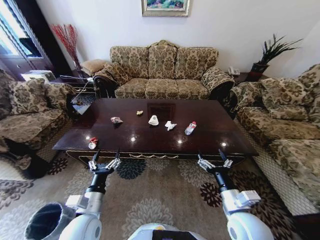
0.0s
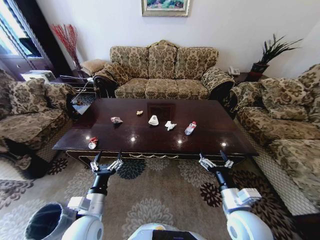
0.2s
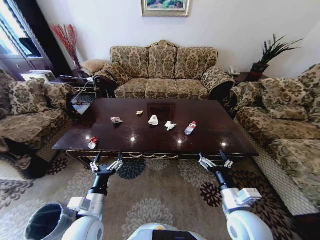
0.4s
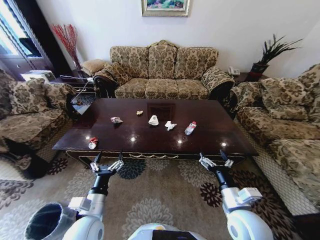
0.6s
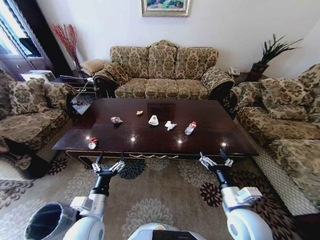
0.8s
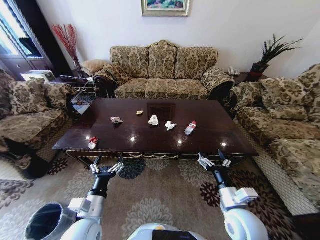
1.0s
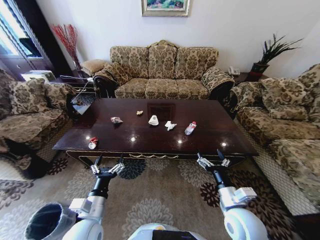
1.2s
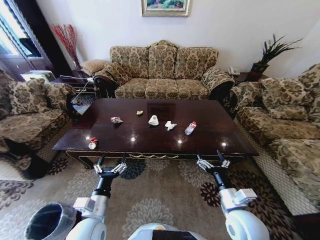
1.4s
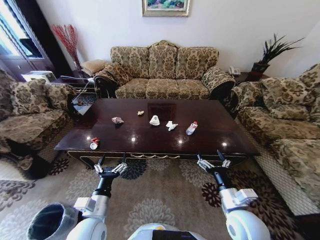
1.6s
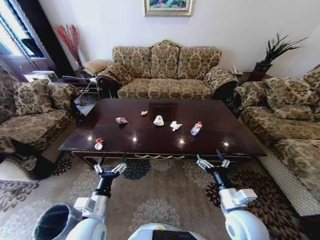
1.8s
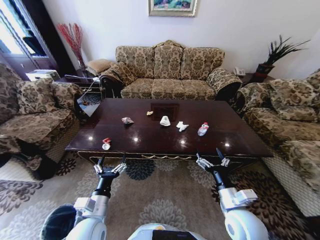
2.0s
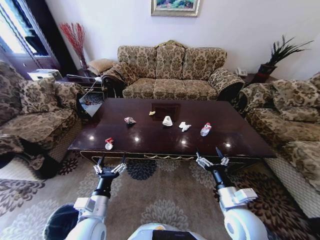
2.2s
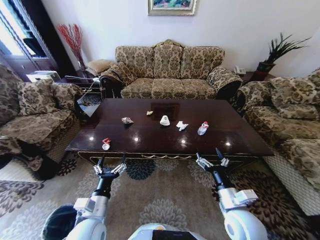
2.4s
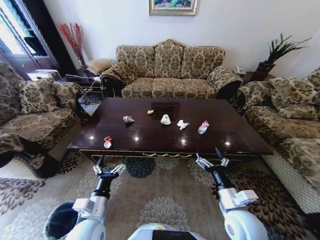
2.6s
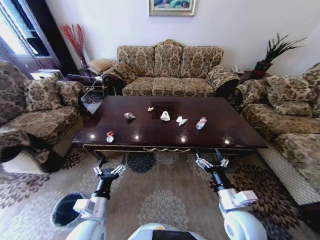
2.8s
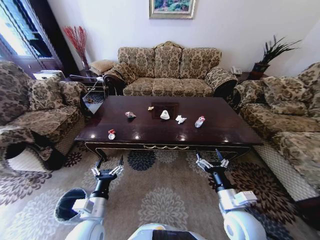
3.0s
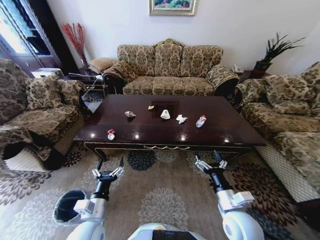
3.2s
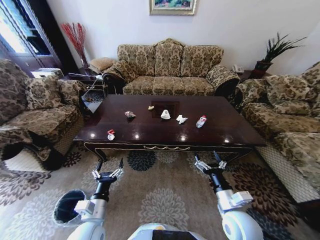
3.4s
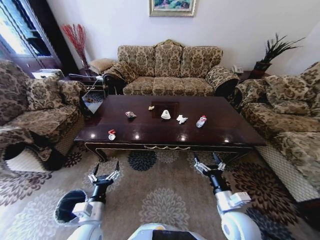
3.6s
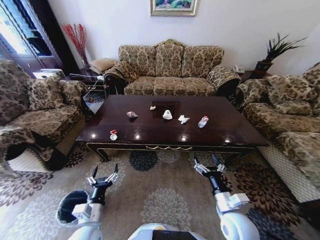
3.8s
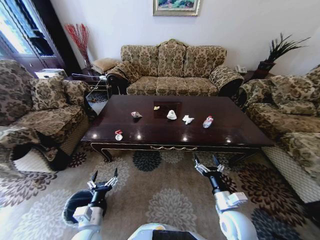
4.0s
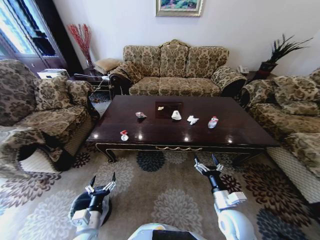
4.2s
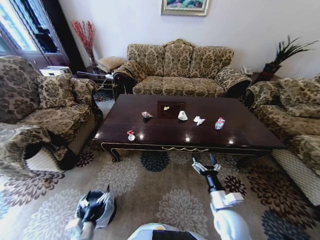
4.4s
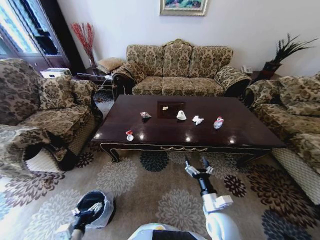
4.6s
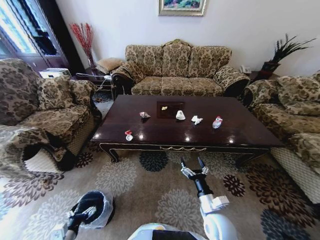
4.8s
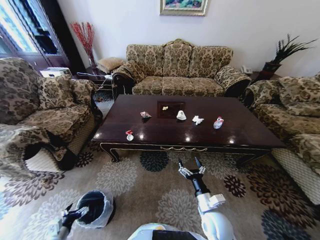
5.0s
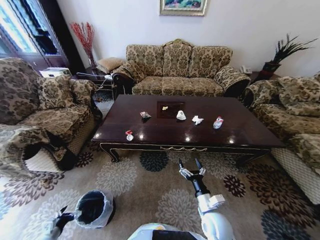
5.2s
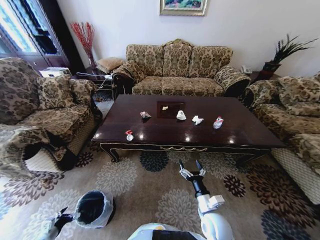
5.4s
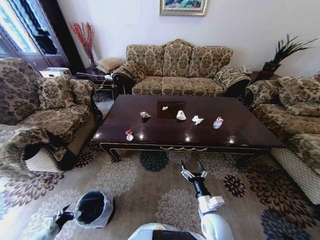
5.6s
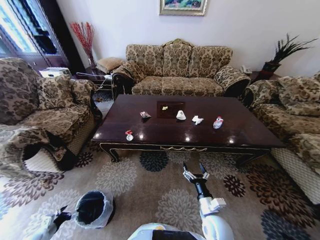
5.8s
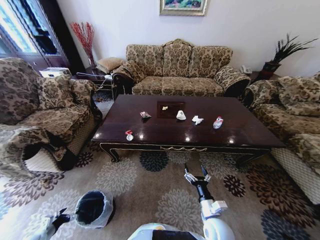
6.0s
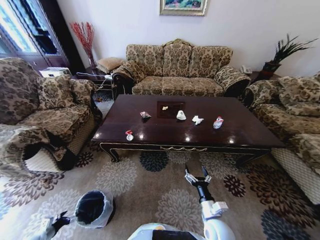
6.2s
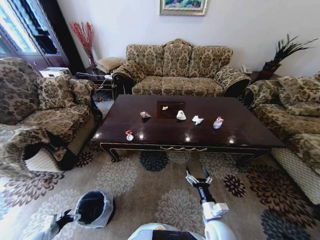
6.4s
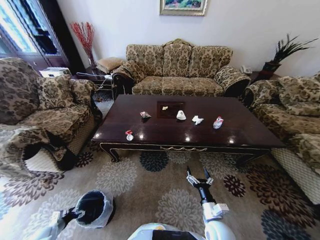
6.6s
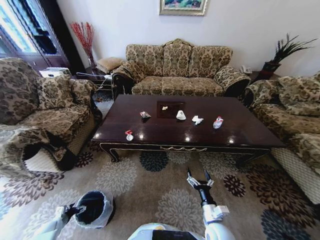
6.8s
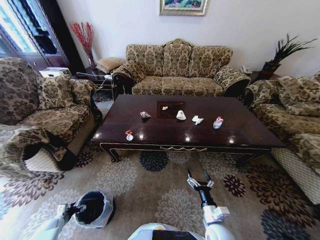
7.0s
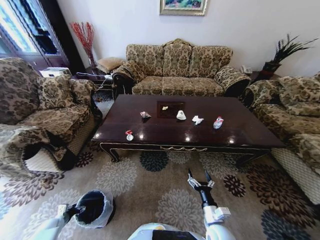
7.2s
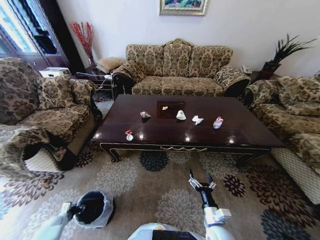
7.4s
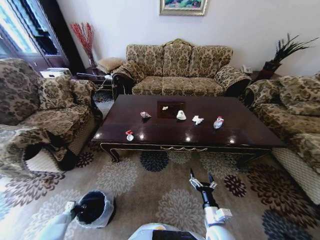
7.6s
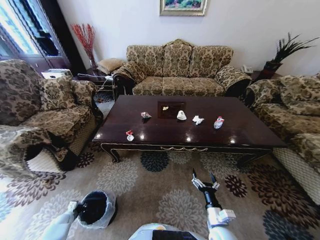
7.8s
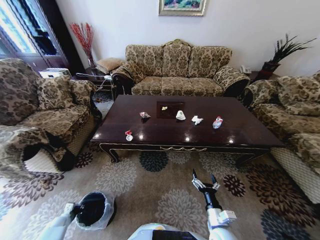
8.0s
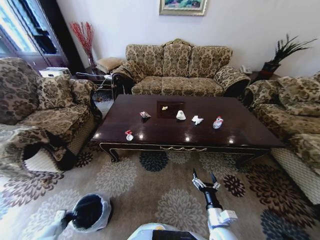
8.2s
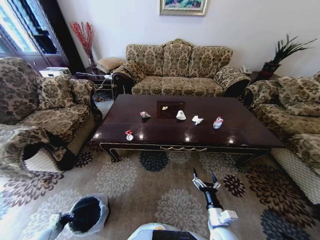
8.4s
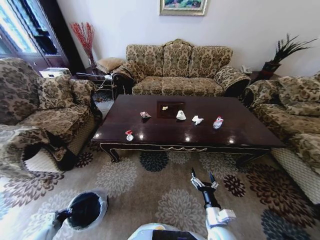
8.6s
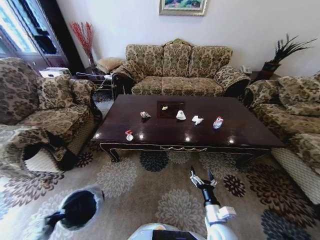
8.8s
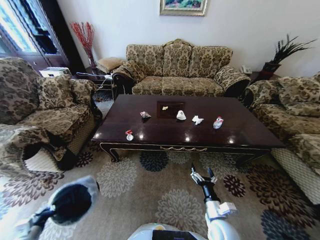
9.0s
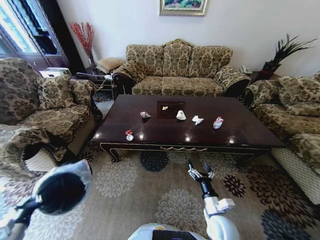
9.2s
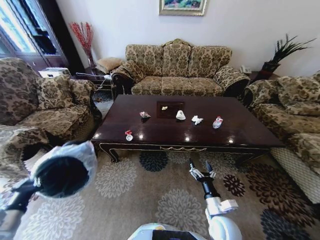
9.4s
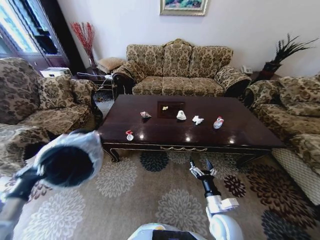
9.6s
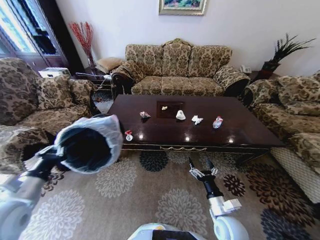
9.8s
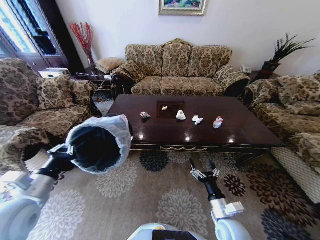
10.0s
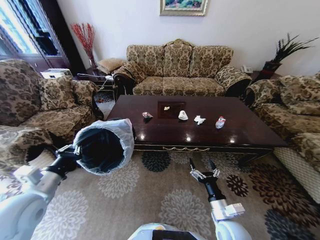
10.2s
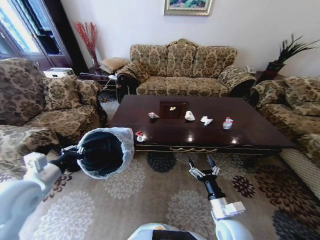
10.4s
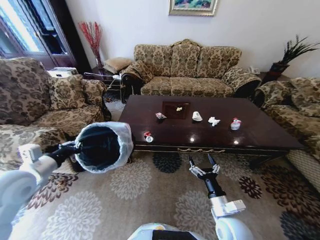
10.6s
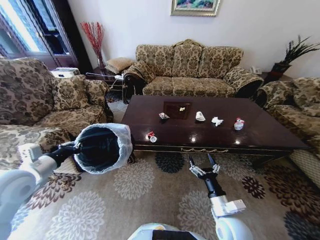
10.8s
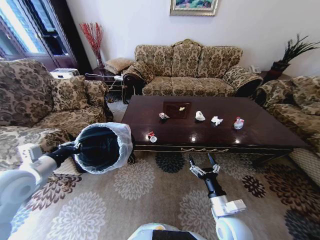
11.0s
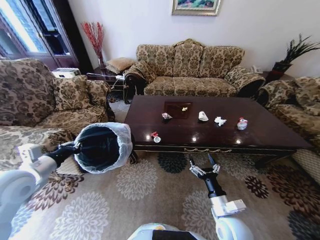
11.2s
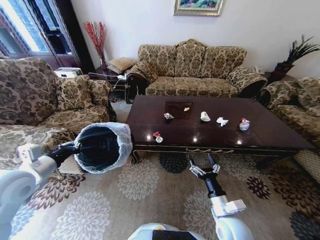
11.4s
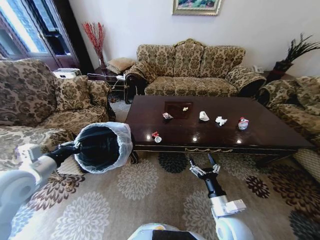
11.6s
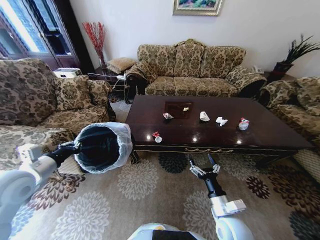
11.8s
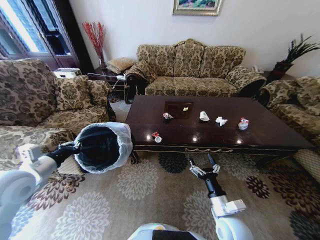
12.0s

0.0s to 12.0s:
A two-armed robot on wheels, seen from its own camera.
Task of the whole recording: Move to the front of the table and place the trash on the table into the trash bin.
3.0s to 4.4s: The right gripper moves downward, roughly 5 cm. Meanwhile the left gripper heads downward and backward, covering approximately 10 cm.
4.4s to 6.0s: The left gripper goes roughly 35 cm to the left and downward. Meanwhile the right gripper shifts approximately 5 cm downward.
6.0s to 7.6s: The left gripper heads forward and downward, covering approximately 10 cm, and closes up.
7.6s to 9.0s: The left gripper goes roughly 20 cm upward and backward.
9.0s to 10.4s: The right gripper goes approximately 5 cm upward. The left gripper goes some 35 cm upward, to the right and forward.

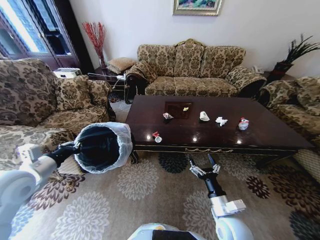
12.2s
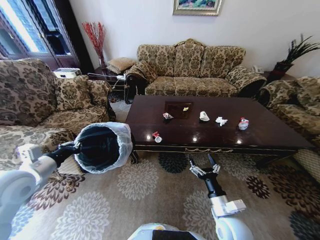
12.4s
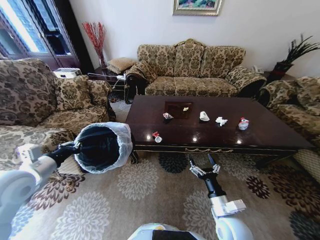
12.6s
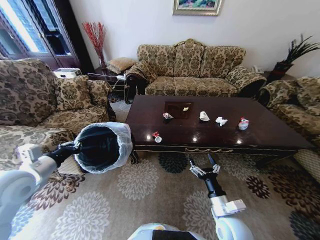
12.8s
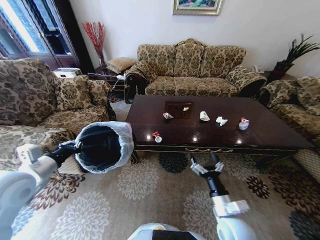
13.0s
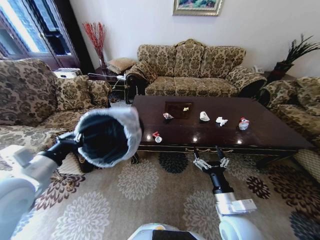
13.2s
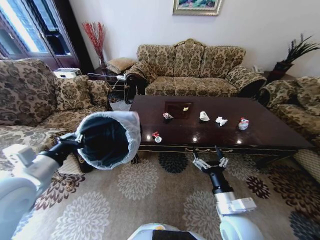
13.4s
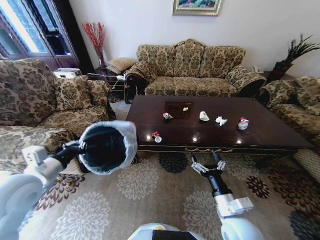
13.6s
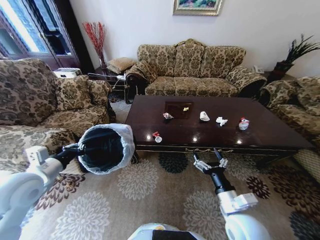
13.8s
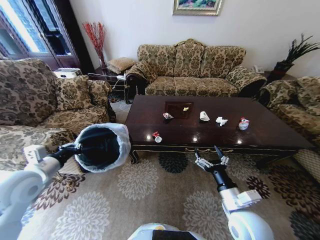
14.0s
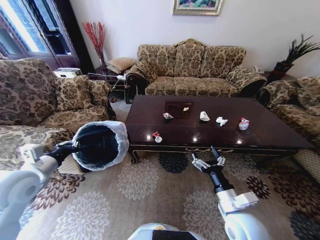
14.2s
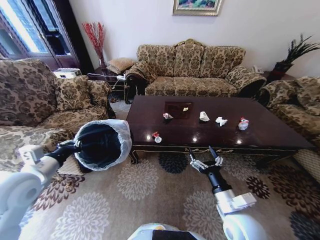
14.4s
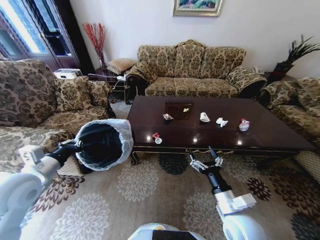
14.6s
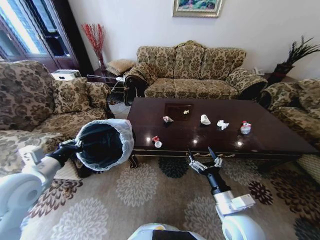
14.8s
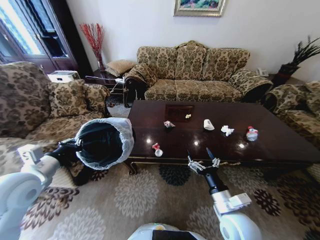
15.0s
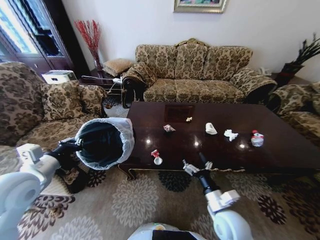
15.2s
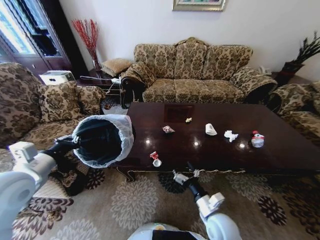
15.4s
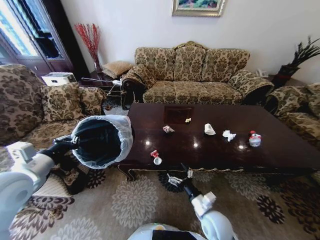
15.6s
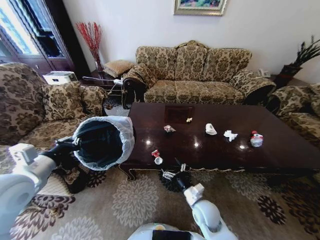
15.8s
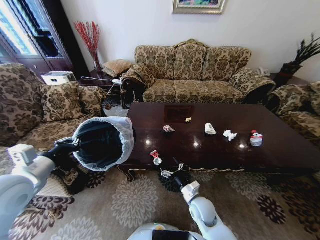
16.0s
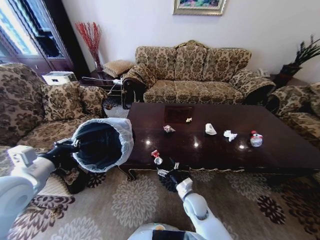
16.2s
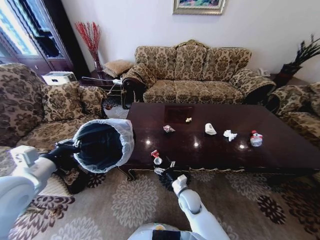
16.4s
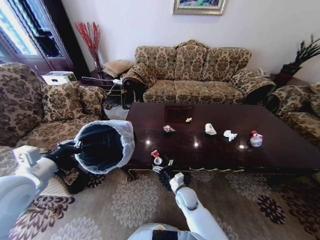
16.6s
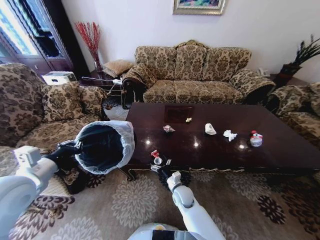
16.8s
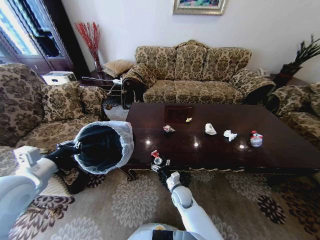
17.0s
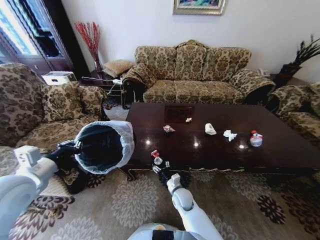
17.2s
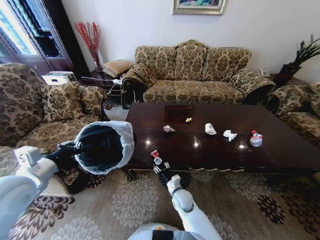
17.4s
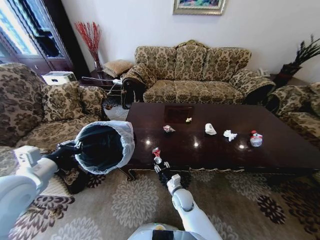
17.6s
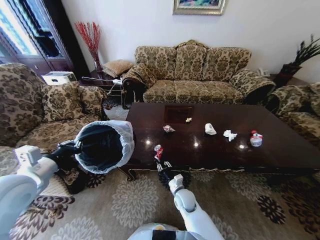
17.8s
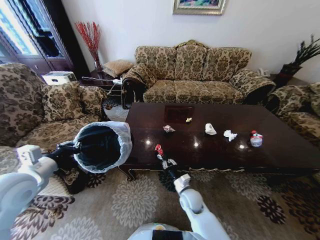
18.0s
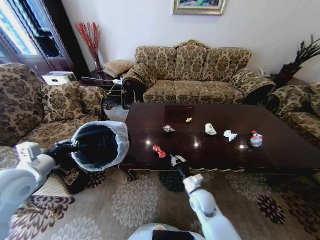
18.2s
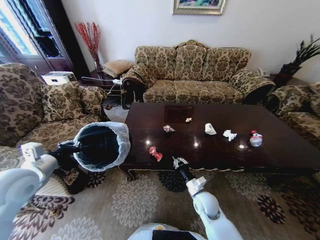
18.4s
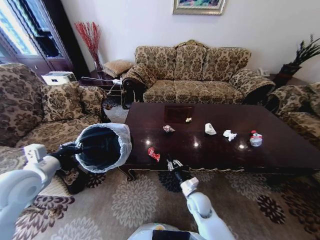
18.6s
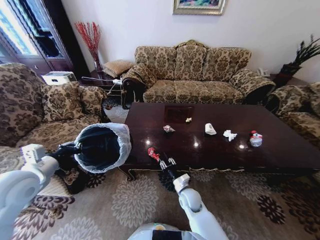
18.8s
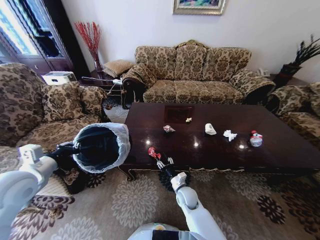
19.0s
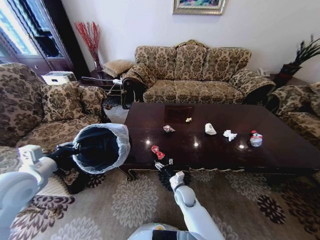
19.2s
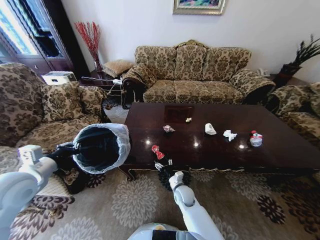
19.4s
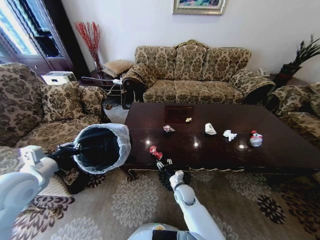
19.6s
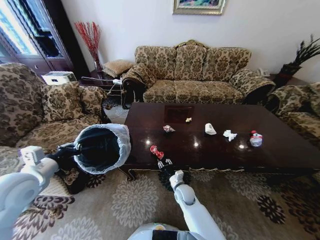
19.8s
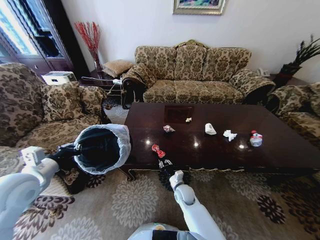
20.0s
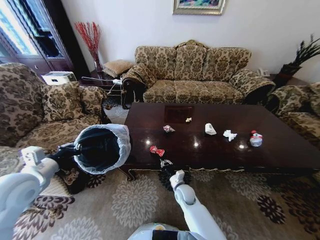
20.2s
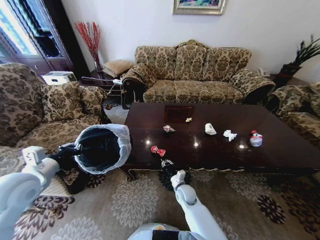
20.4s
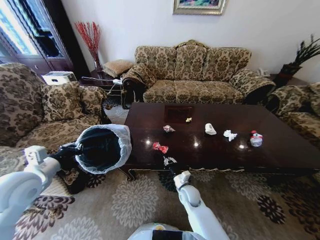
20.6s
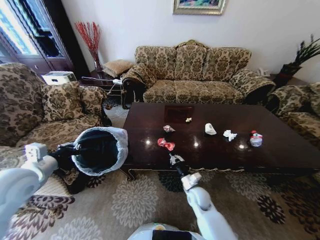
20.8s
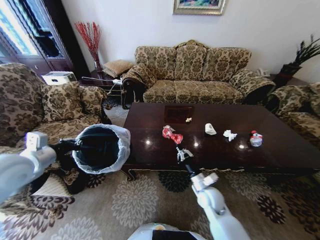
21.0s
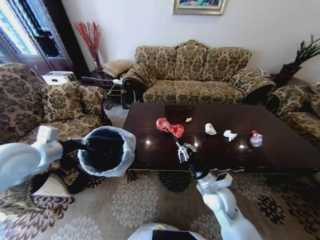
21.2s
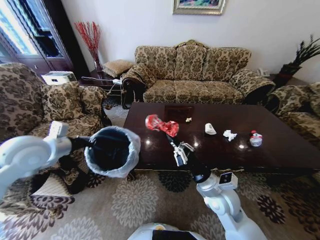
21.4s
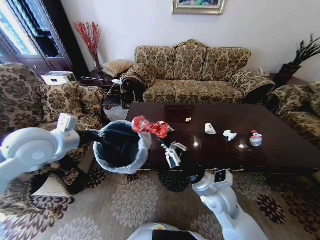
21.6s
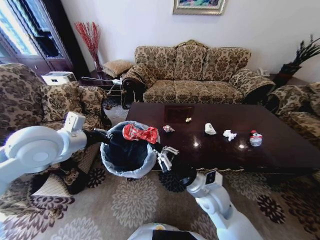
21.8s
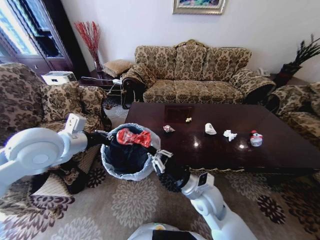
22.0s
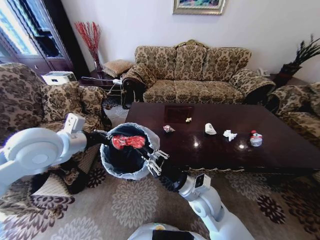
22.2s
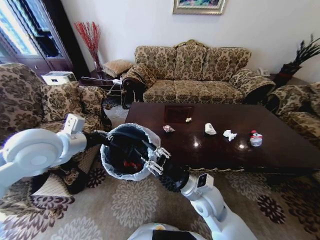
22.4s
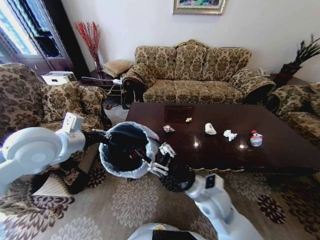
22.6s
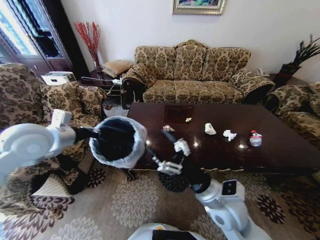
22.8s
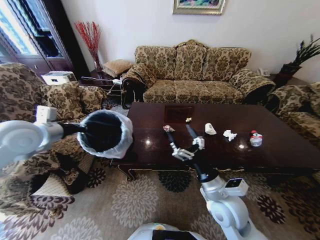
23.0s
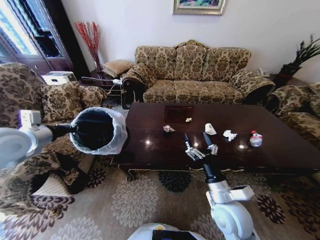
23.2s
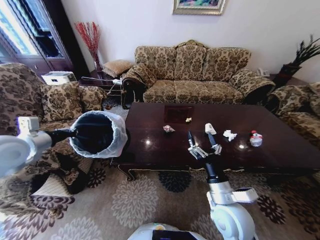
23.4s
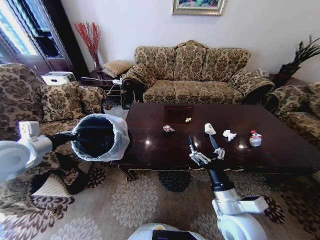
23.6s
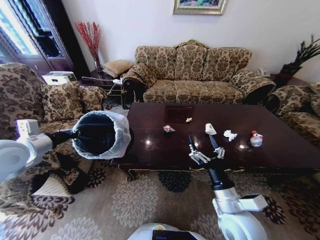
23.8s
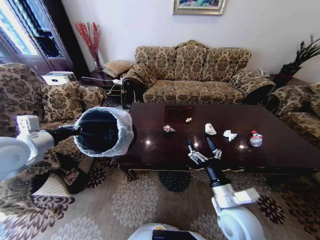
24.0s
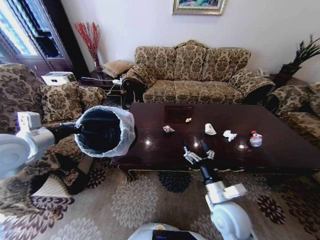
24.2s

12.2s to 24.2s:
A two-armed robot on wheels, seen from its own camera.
Task of the whole recording: Move to the front of the table and place the trash on the table into the trash bin.
12.2s to 13.8s: The right gripper moves upward, about 5 cm.
13.8s to 15.2s: The right gripper shifts by about 5 cm.
15.2s to 16.6s: The right gripper moves downward, forward and to the left, some 20 cm.
16.6s to 18.2s: The right gripper heads to the right and upward, covering about 10 cm, and closes up.
18.2s to 19.8s: The right gripper travels downward and to the left by approximately 10 cm, and opens its fingers.
19.8s to 21.2s: The right gripper moves upward and to the right, approximately 20 cm, and closes up. Meanwhile the left gripper is displaced upward and forward by approximately 10 cm.
21.2s to 22.6s: The right gripper heads upward and to the left, covering some 10 cm, and opens its fingers; the left gripper shifts about 10 cm to the right.
22.6s to 24.2s: The left gripper travels to the left by roughly 10 cm. Meanwhile the right gripper changes place by some 5 cm, and opens its fingers.
